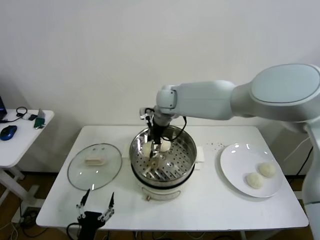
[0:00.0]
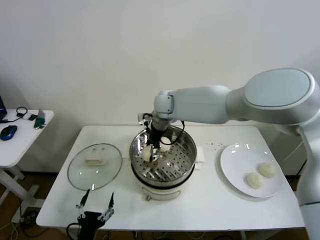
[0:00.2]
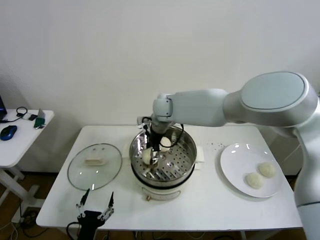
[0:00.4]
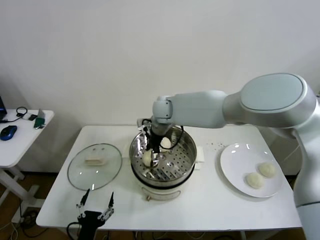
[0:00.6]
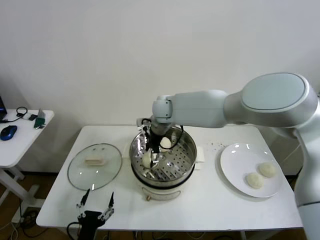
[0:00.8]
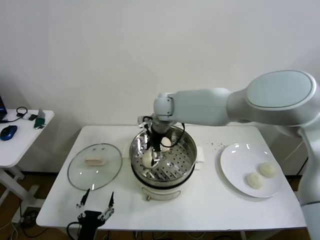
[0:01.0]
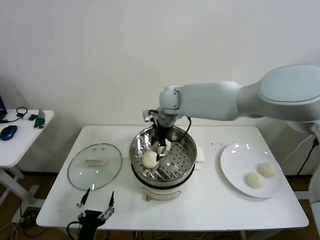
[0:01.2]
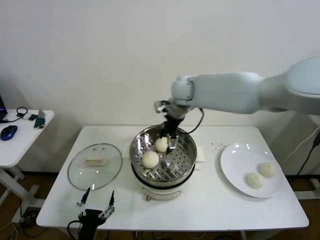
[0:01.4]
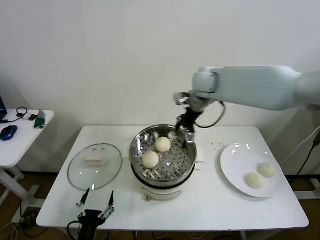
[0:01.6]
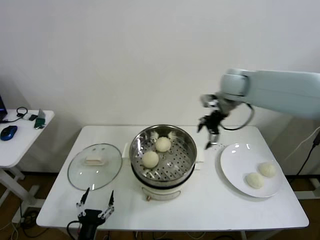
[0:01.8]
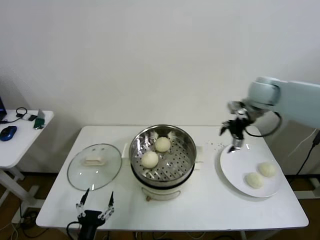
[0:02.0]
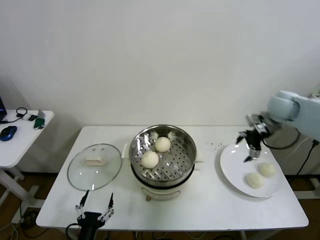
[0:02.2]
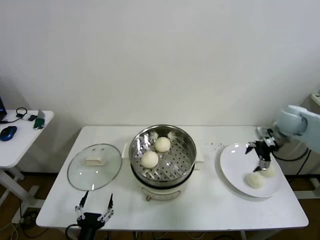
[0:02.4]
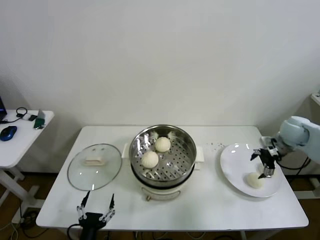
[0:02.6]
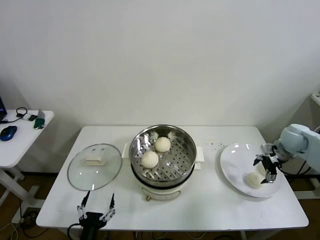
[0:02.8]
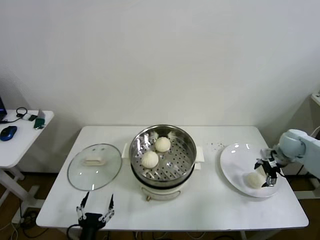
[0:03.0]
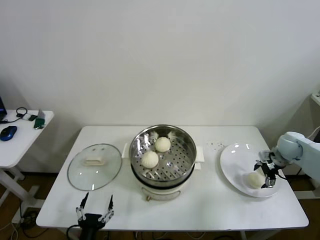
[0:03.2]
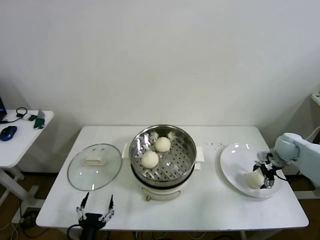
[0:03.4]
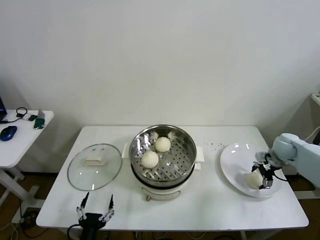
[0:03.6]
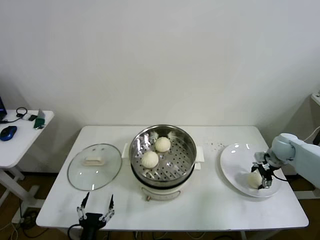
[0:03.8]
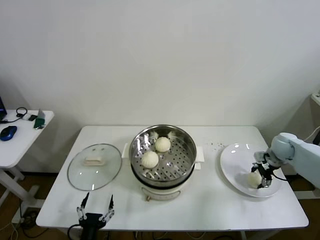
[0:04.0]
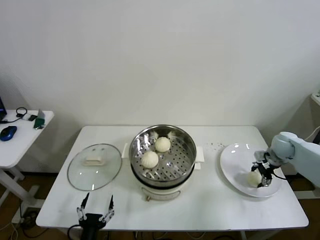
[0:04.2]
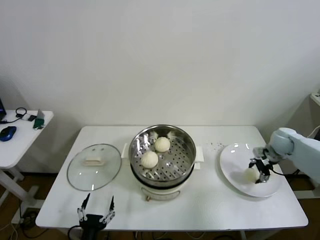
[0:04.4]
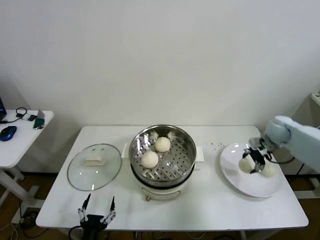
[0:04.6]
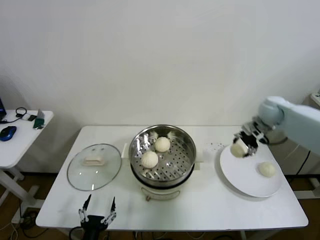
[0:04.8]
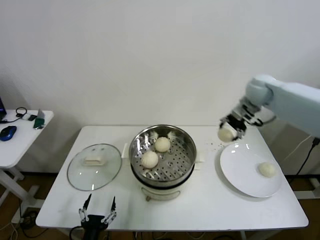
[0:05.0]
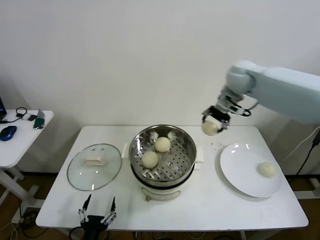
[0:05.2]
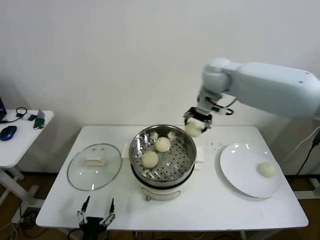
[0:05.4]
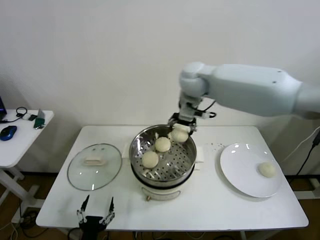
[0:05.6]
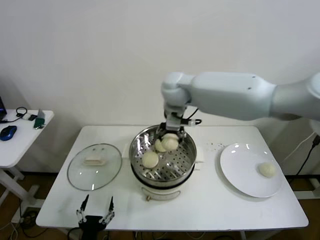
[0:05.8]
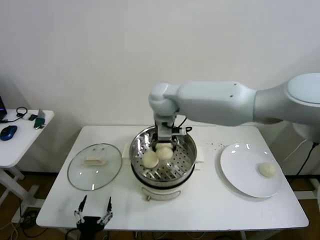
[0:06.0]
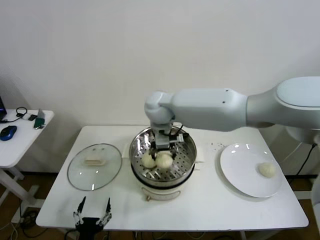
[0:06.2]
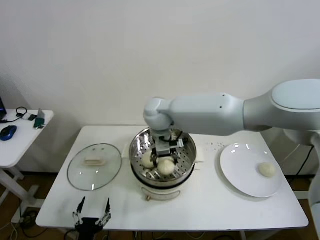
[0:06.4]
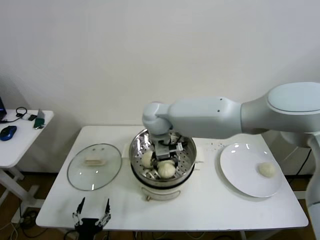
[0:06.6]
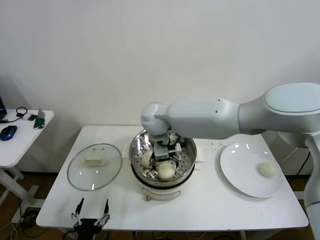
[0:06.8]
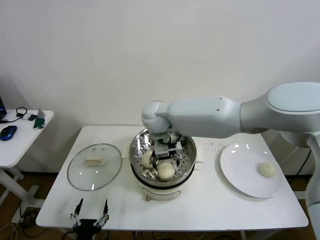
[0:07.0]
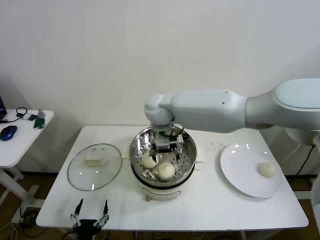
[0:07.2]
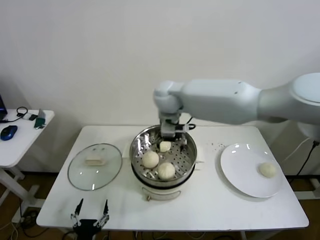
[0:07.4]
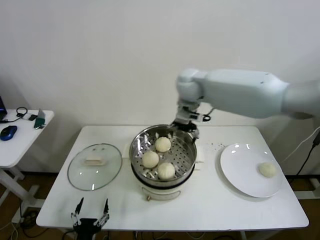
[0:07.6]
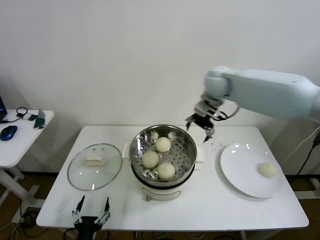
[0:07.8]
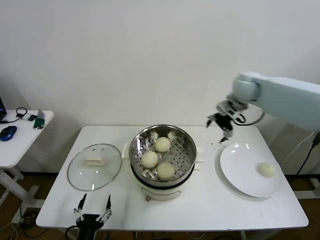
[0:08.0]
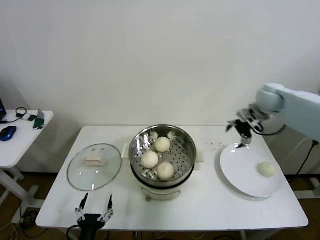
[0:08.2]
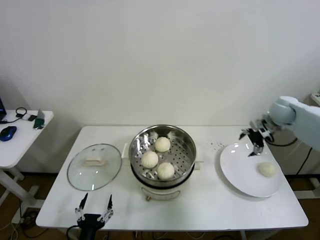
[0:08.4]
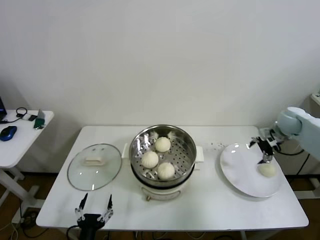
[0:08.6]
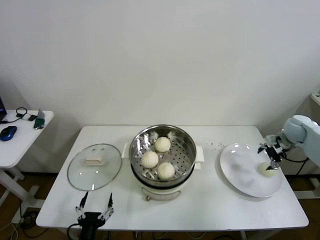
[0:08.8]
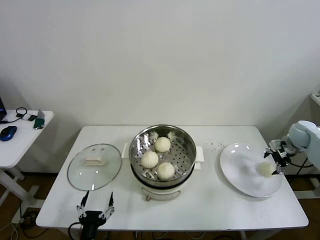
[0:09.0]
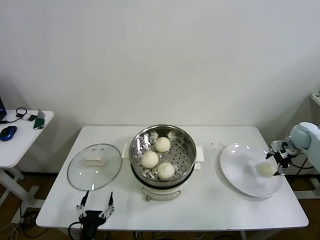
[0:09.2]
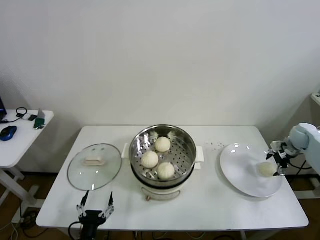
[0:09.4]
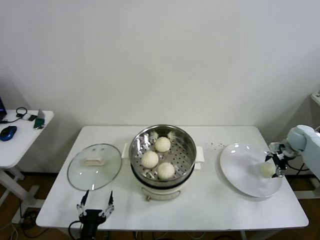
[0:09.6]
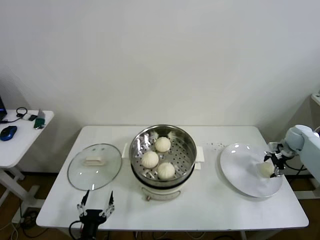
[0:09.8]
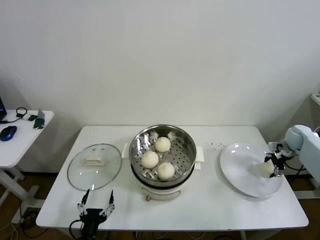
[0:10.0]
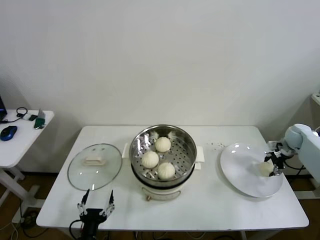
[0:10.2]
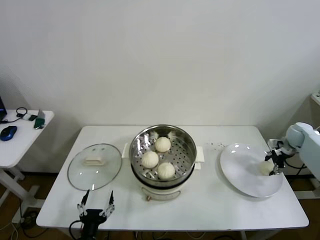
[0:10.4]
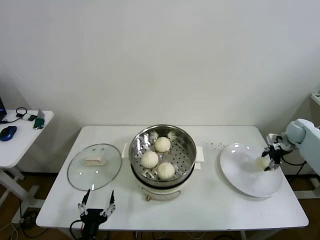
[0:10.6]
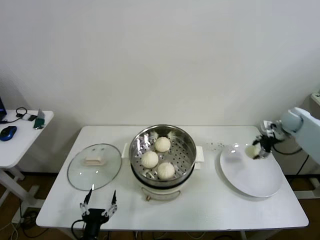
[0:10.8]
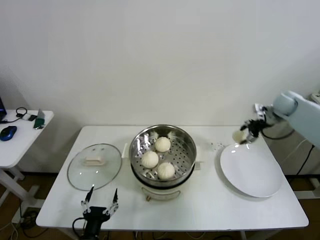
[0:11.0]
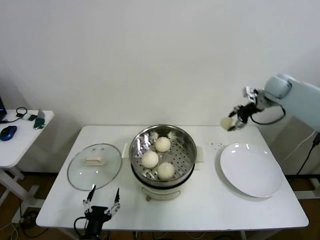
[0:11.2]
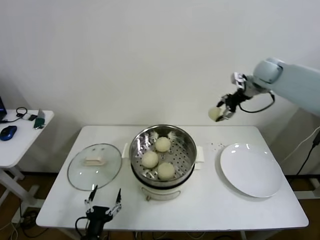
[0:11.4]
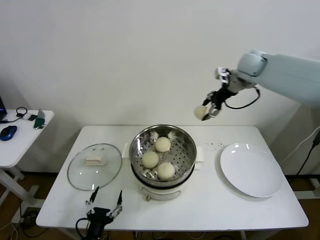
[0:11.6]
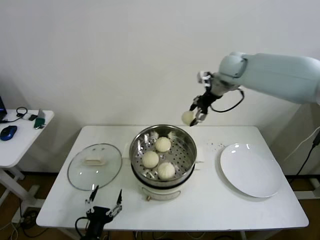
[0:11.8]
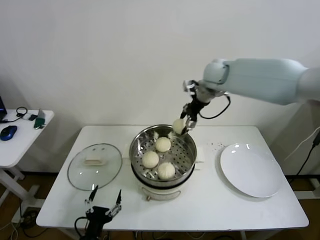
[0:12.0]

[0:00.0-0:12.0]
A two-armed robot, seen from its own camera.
Step, 0:00.8 to 0:03.8: Grasp the baozi in the plate with right gripper.
Step, 0:04.0 to 0:06.6: Place the baozi on the steamer with right gripper.
Step, 0:06.8 to 0:10.0: Grasp the baozi in the plate with right gripper.
0:00.0 to 0:01.6: The right gripper is displaced to the right and upward by some 15 cm, and opens.
0:01.6 to 0:03.0: The right gripper moves to the right and downward, approximately 40 cm.
0:03.0 to 0:04.4: The right gripper closes its fingers.
0:04.4 to 0:06.0: The right gripper travels to the left and upward by roughly 50 cm.
0:06.0 to 0:07.6: The right gripper heads to the right, covering roughly 10 cm, and opens.
0:07.6 to 0:09.0: The right gripper travels to the right and downward by roughly 50 cm.
0:09.0 to 0:10.4: The right gripper closes its fingers.
0:10.4 to 0:12.0: The right gripper goes roughly 40 cm to the left and upward.

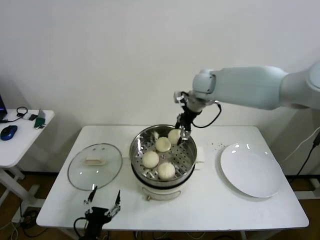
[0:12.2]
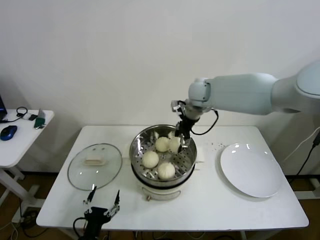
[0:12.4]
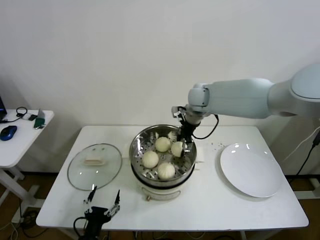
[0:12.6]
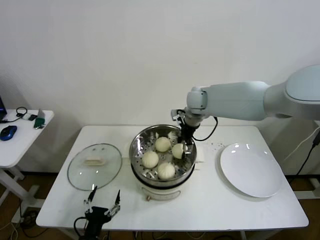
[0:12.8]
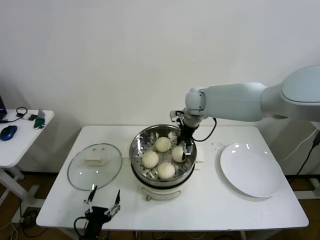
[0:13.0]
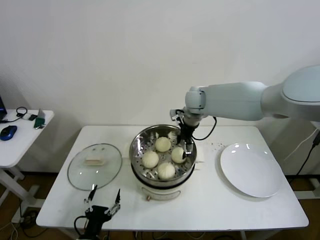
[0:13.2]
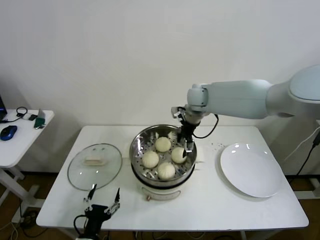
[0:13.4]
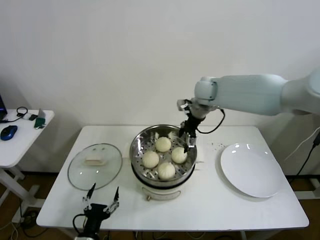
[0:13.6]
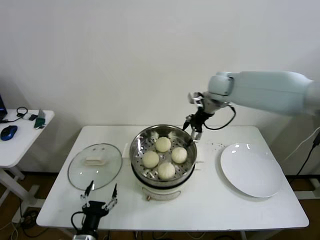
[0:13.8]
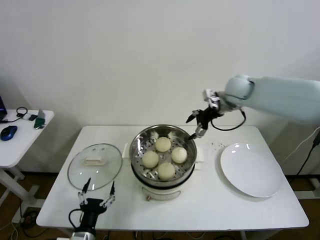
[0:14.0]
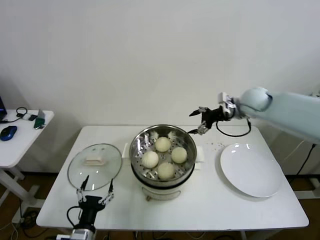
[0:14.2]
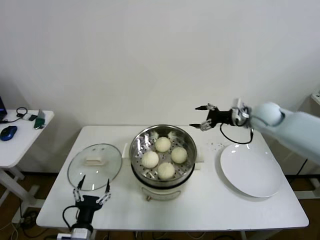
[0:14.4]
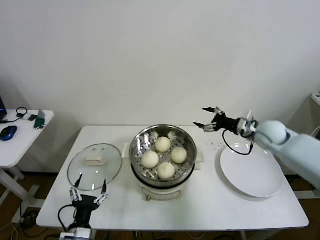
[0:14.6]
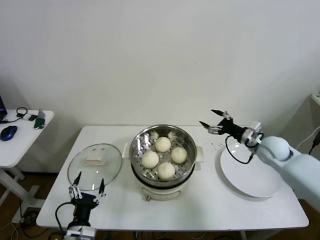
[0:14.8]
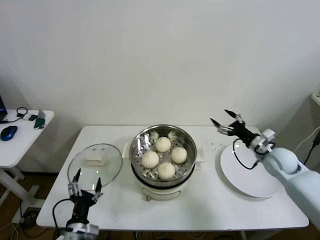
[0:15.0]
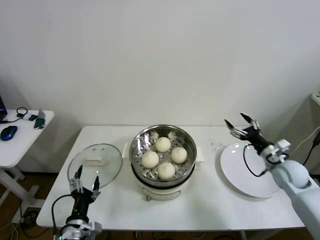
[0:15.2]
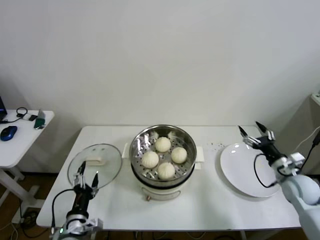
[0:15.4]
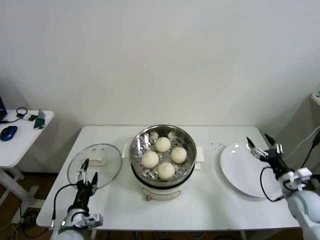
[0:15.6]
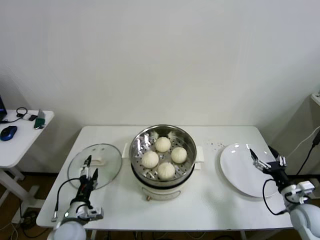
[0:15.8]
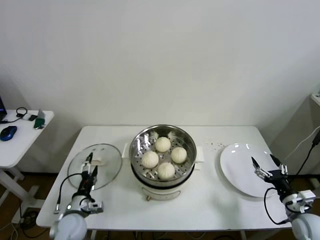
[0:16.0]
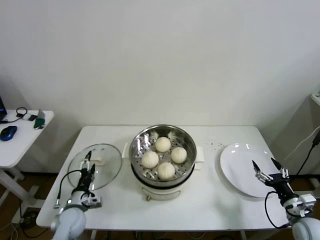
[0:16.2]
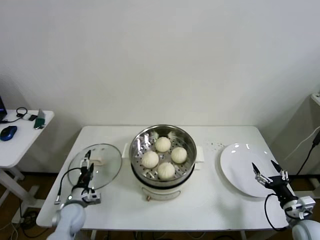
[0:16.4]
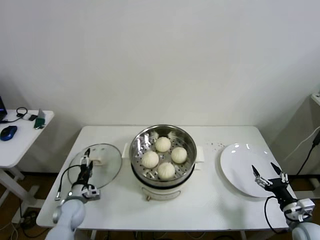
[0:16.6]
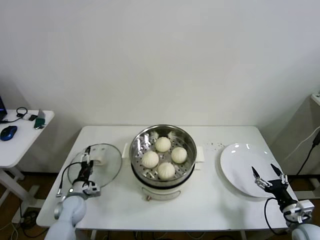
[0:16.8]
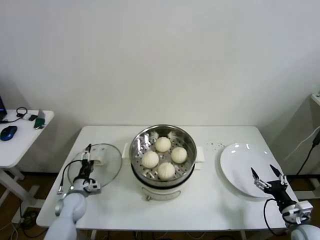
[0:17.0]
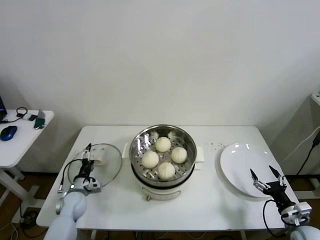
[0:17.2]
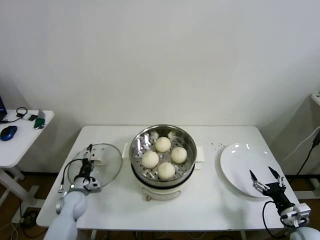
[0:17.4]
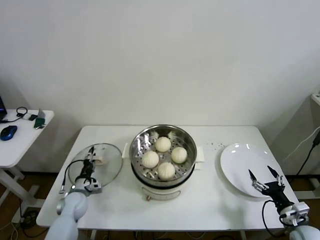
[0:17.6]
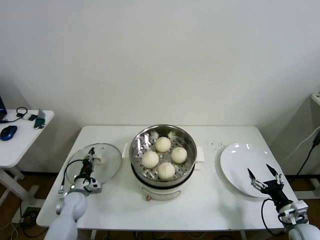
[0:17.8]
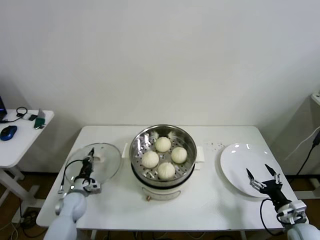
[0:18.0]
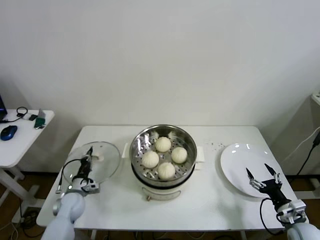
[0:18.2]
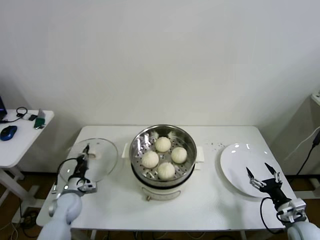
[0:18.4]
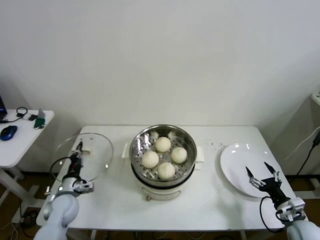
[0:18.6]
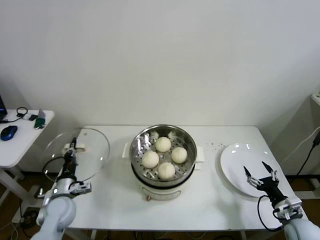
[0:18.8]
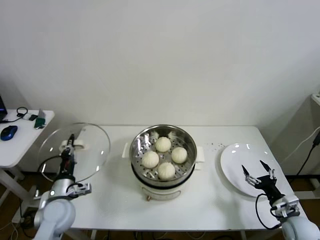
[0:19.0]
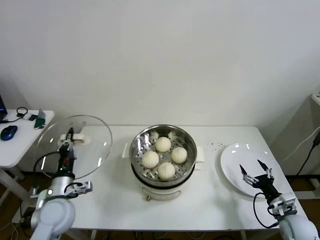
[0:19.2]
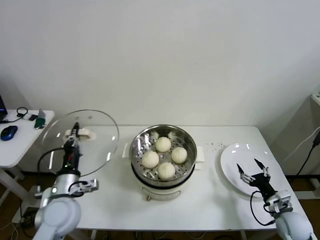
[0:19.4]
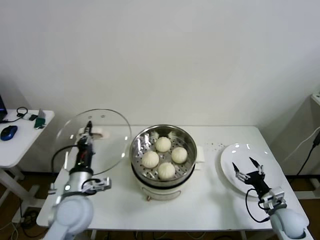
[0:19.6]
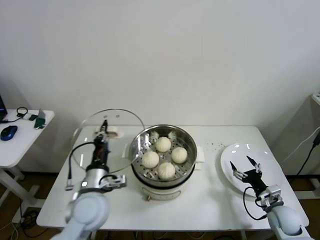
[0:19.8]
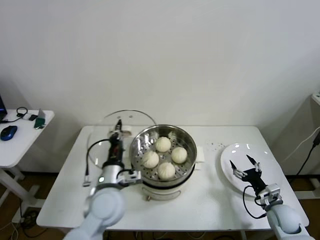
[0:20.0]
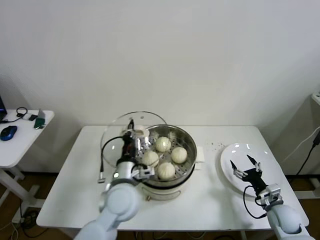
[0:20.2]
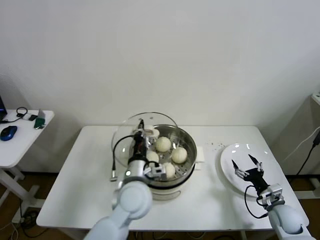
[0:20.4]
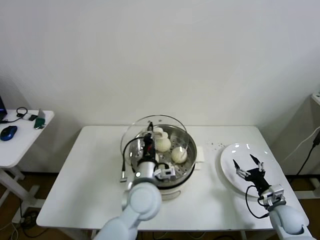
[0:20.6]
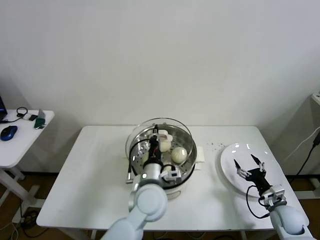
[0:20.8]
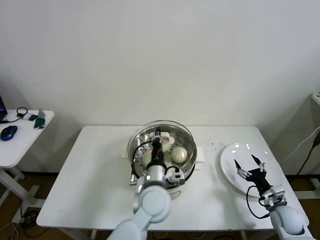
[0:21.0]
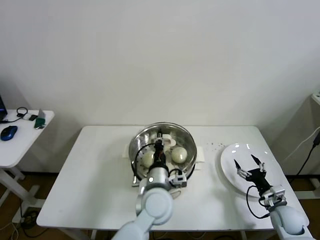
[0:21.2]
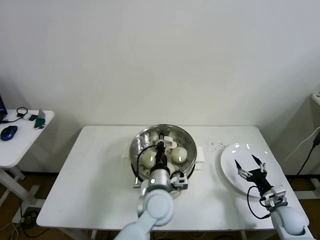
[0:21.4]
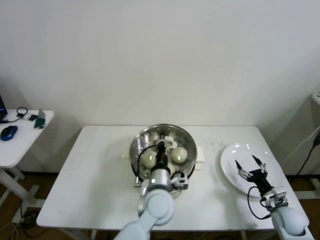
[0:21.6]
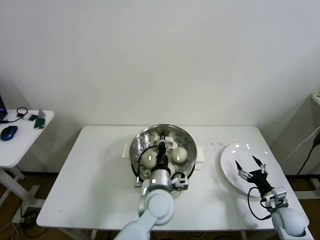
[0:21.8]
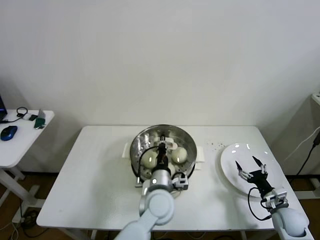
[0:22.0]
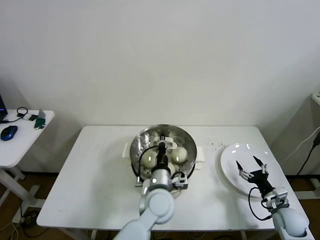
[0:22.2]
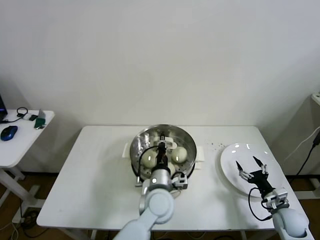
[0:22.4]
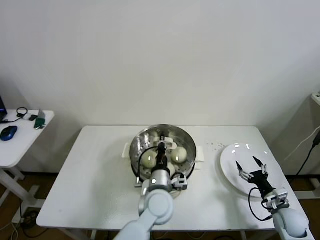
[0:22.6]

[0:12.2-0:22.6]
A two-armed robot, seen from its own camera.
Step, 0:13.0 to 0:17.8: Grasp the pot lid with left gripper.
0:12.2 to 0:13.6: The right gripper opens up.
0:13.6 to 0:15.2: The right gripper shifts roughly 40 cm to the right, downward and backward.
0:15.2 to 0:16.6: The right gripper moves backward and downward, some 20 cm. Meanwhile the left gripper moves forward, downward and to the left, about 20 cm.
0:16.6 to 0:18.2: The left gripper closes its fingers.
0:18.2 to 0:19.6: The right gripper shifts by approximately 5 cm; the left gripper shifts approximately 25 cm upward, to the right and backward.
0:19.6 to 0:21.2: The left gripper moves to the right, roughly 25 cm.
0:21.2 to 0:22.6: The grippers move only a little.
